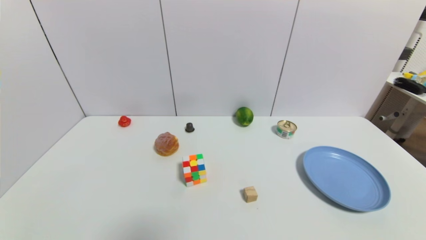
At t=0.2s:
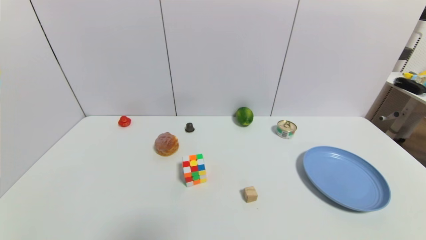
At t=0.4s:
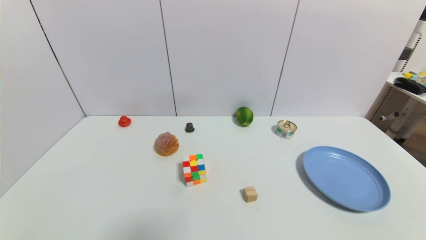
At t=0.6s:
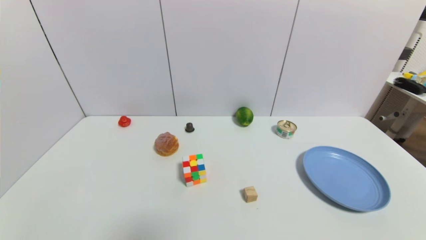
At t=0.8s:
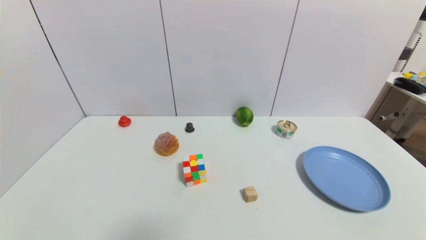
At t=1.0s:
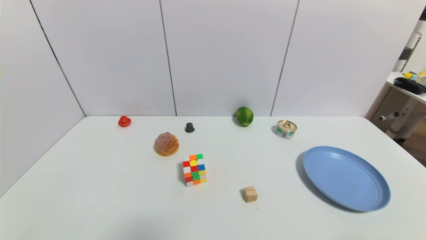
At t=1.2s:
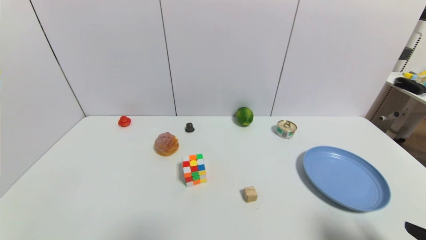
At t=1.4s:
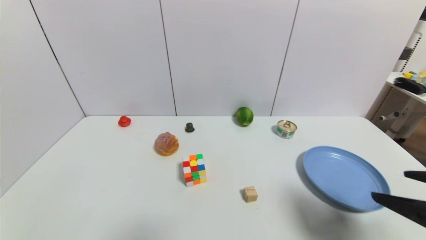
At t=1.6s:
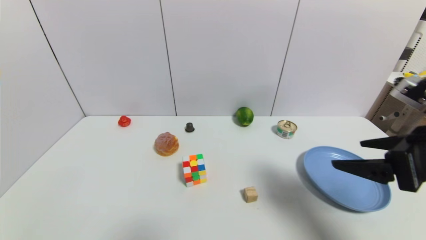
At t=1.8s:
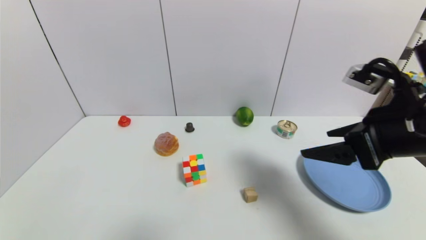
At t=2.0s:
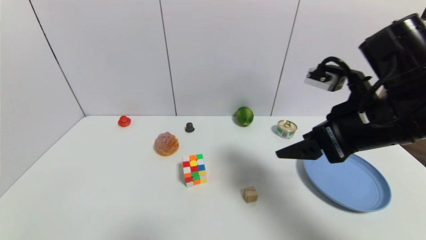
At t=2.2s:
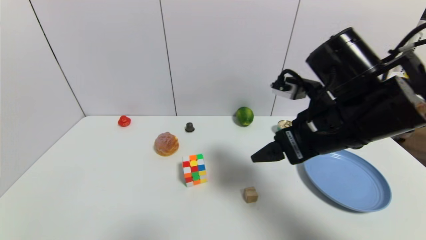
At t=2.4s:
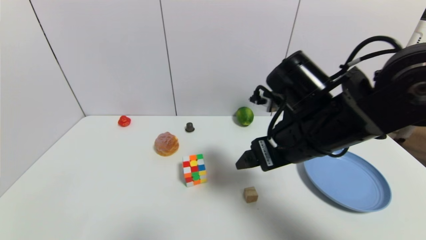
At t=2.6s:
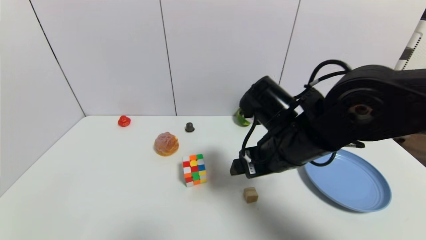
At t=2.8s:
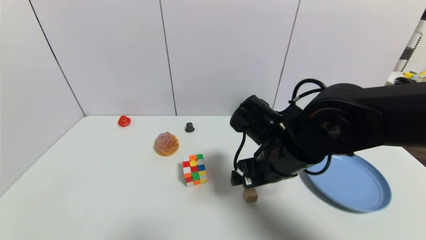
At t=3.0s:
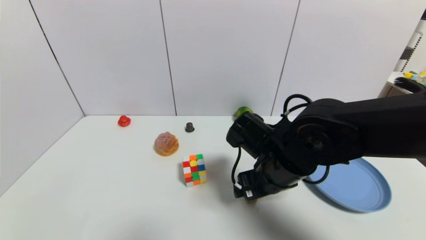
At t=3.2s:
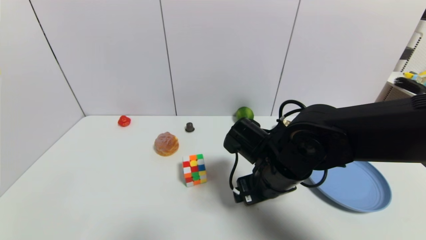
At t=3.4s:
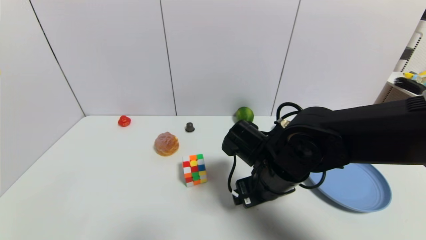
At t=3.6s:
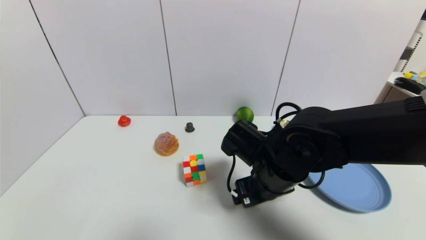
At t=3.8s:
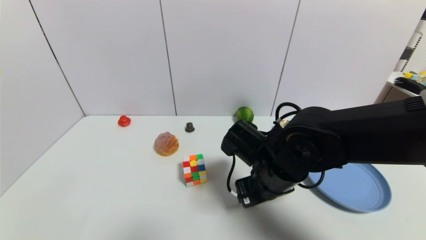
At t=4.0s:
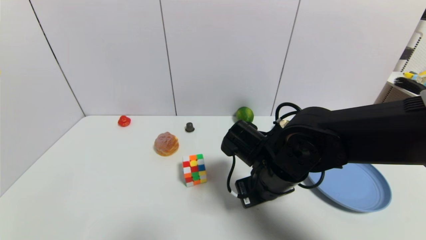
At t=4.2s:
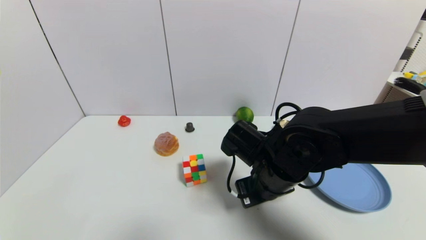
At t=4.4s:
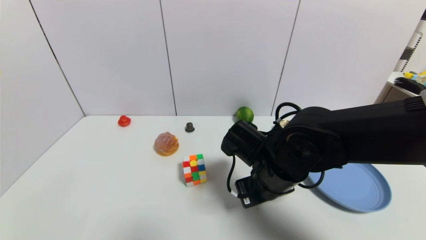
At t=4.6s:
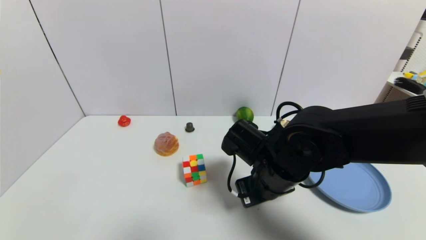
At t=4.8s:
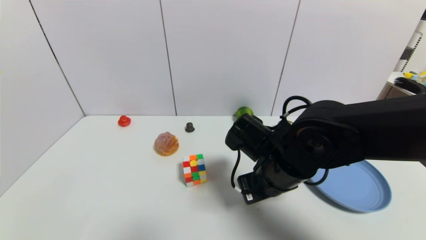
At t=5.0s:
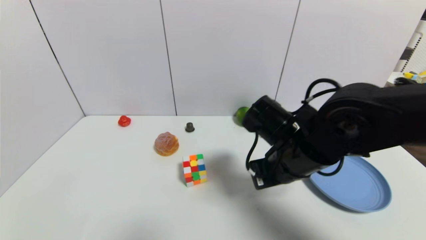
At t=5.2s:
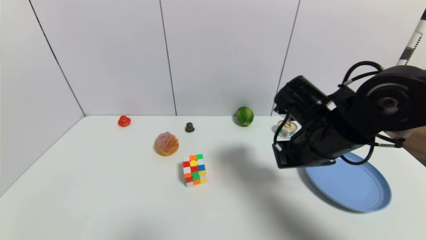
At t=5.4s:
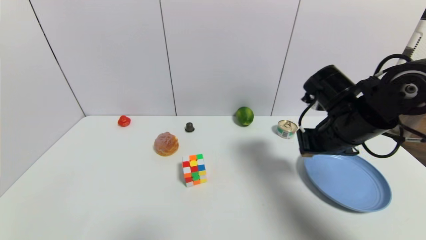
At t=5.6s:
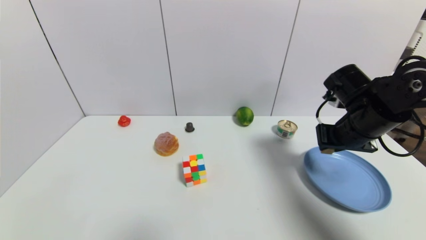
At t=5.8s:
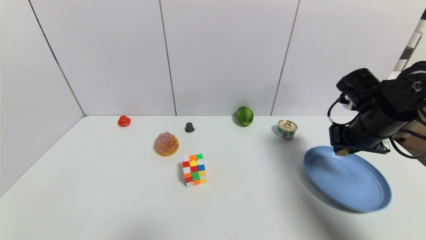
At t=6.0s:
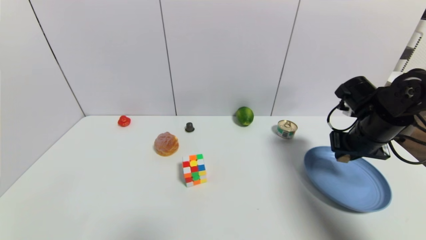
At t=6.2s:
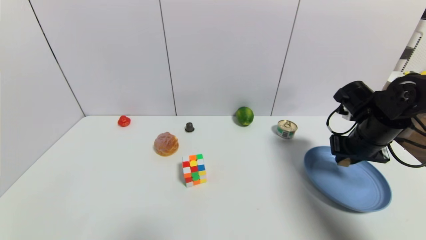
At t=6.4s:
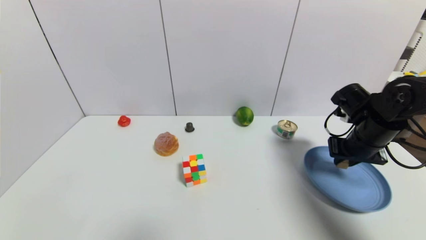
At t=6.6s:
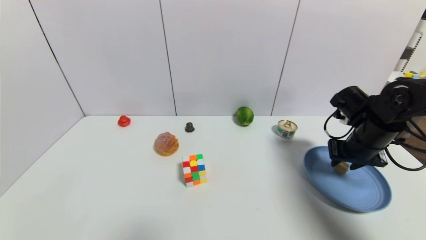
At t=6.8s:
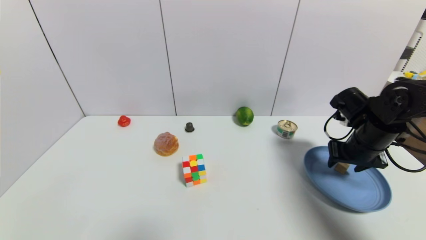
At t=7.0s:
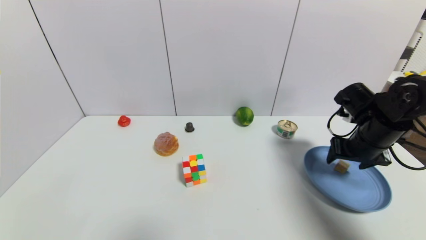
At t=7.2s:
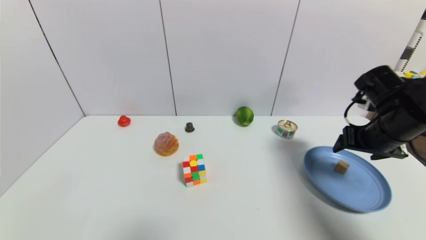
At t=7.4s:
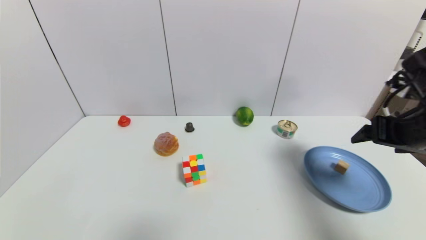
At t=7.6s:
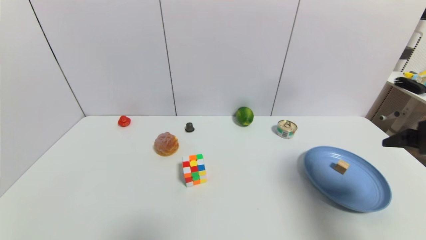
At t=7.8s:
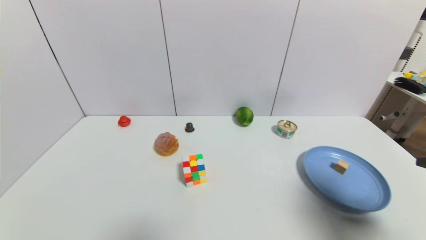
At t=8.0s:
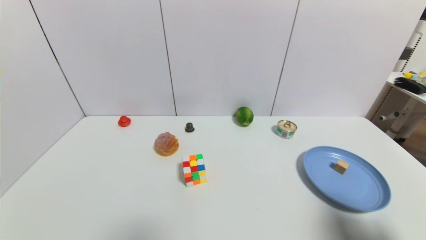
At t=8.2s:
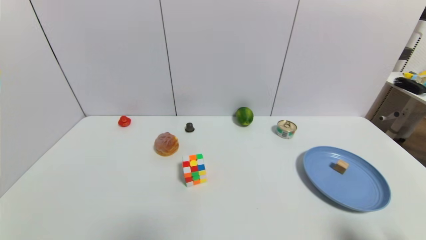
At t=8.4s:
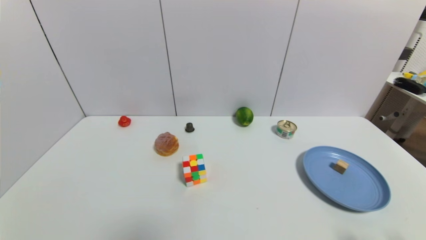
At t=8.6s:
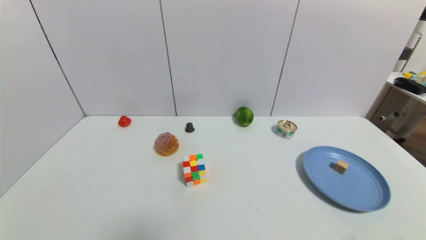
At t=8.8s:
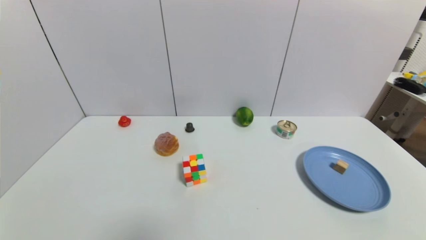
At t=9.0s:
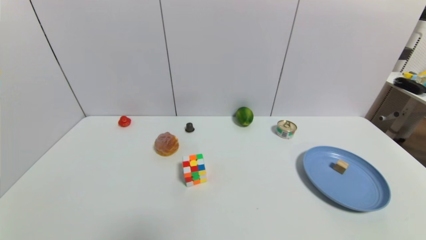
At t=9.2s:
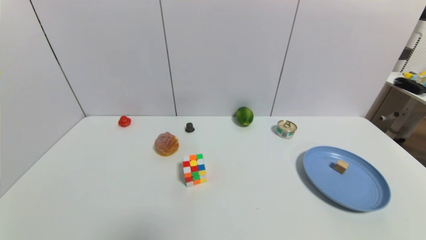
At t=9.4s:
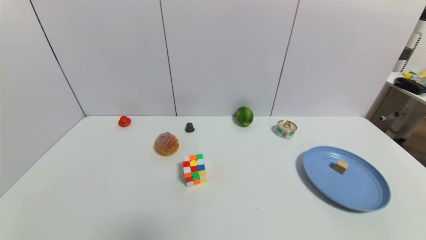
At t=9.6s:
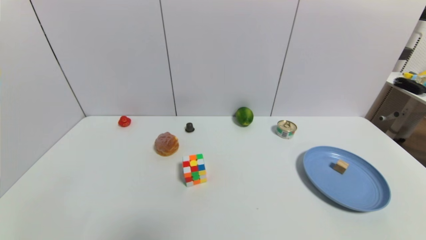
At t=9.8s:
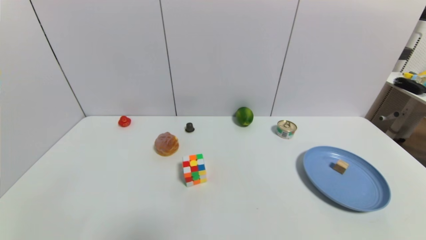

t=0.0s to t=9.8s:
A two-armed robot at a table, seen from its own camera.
Task of the whole recording: use a gripper to pick the target object and place on the blue plate.
Step, t=0.0s to t=4.2s: Grasp the square wooden block with the right gripper.
Step, t=4.4s to t=6.6s: Place the square wooden block on the blue plate with the right gripper.
t=0.0s to t=1.4s: The right gripper heads upward and forward, covering about 20 cm.
t=1.4s to t=2.8s: The right gripper travels to the left and forward by roughly 25 cm.
t=2.8s to t=4.2s: The right gripper closes its fingers.
t=4.2s to t=5.6s: The right gripper moves to the right, some 20 cm.
t=5.6s to t=7.0s: The right gripper ends up about 5 cm from where it was, and opens up.
t=7.0s to t=8.4s: The right gripper travels backward by roughly 30 cm.
